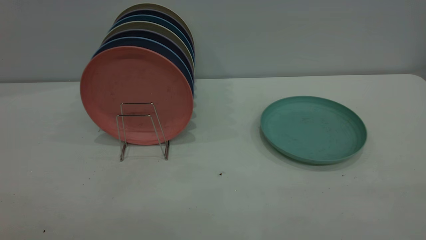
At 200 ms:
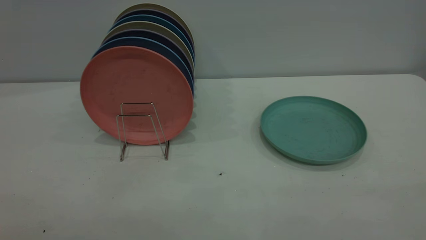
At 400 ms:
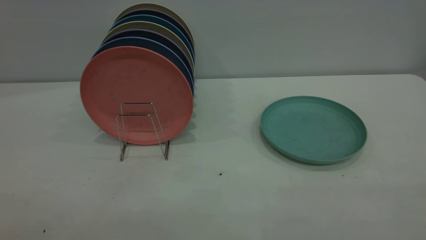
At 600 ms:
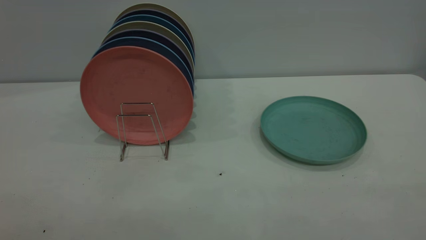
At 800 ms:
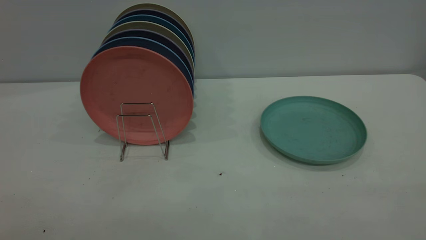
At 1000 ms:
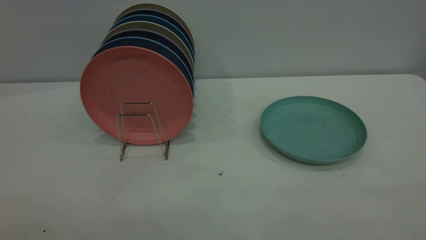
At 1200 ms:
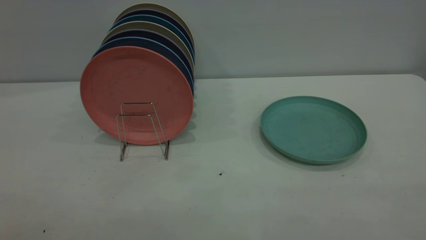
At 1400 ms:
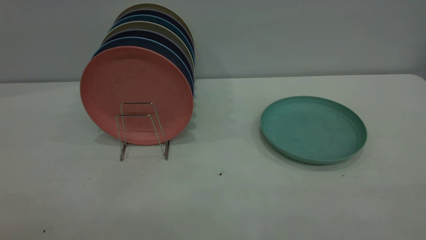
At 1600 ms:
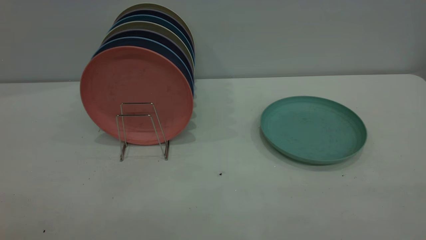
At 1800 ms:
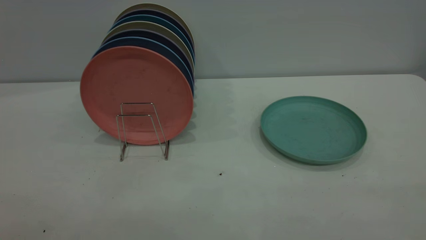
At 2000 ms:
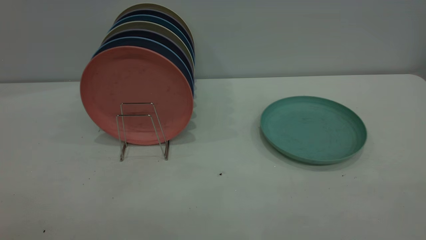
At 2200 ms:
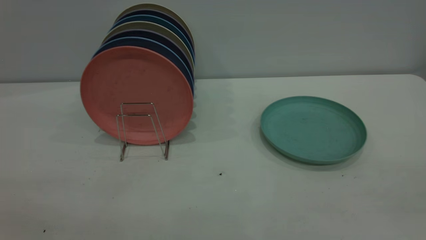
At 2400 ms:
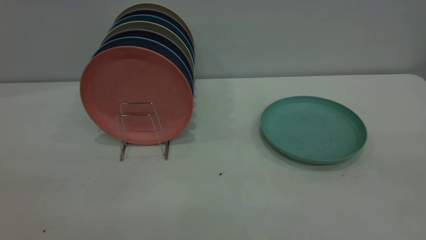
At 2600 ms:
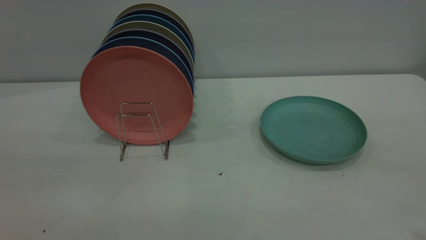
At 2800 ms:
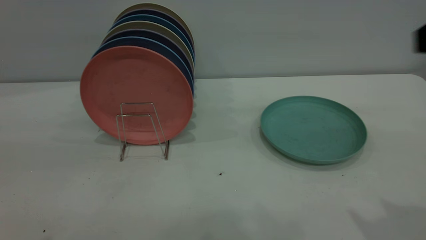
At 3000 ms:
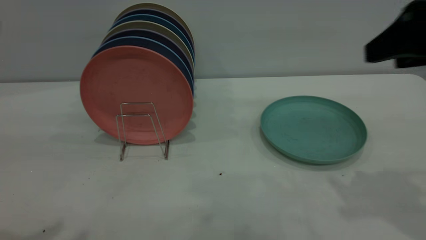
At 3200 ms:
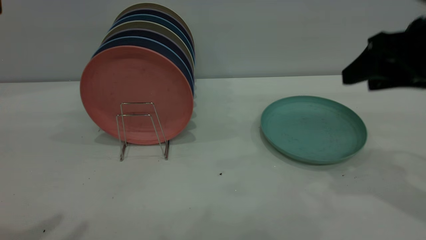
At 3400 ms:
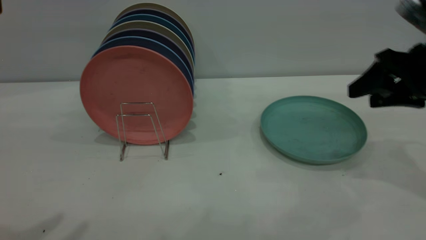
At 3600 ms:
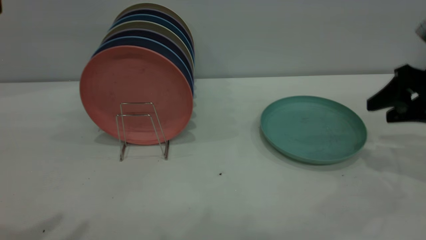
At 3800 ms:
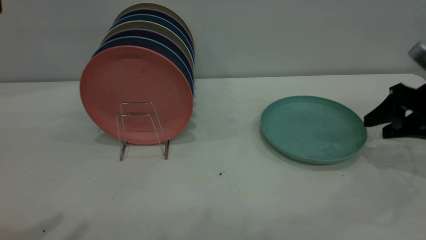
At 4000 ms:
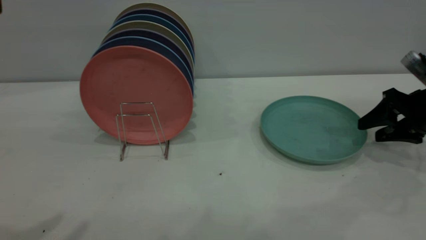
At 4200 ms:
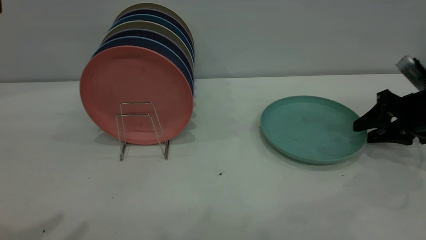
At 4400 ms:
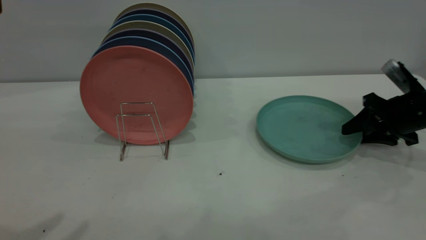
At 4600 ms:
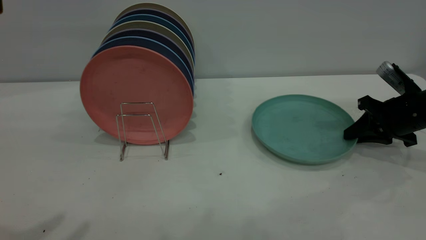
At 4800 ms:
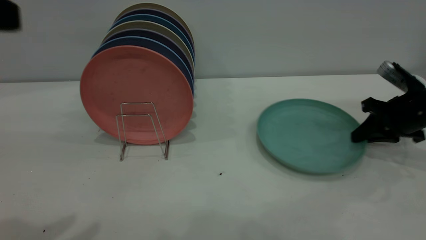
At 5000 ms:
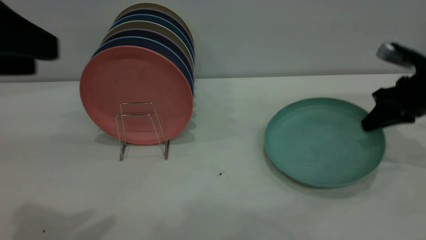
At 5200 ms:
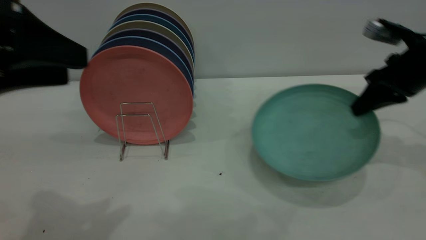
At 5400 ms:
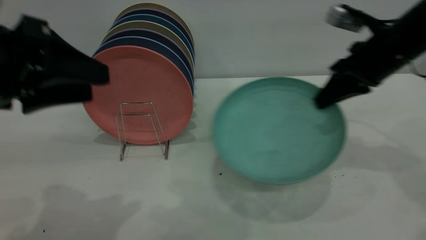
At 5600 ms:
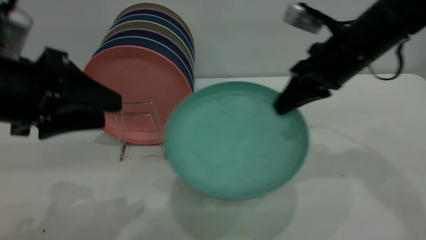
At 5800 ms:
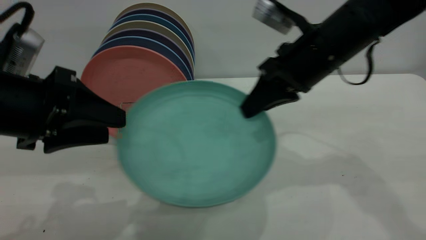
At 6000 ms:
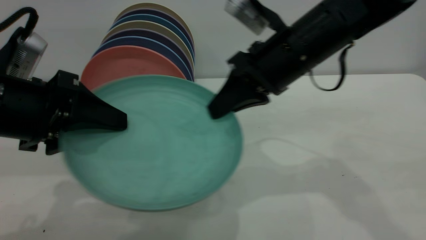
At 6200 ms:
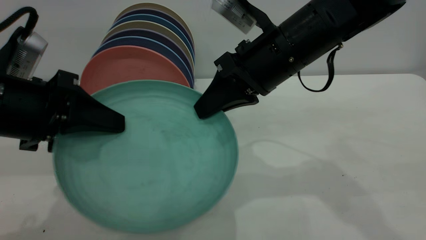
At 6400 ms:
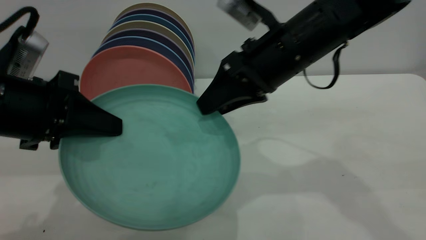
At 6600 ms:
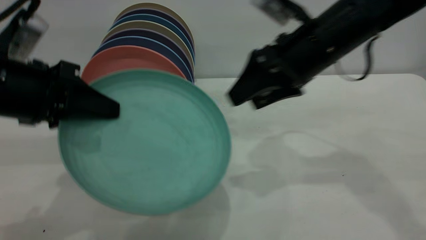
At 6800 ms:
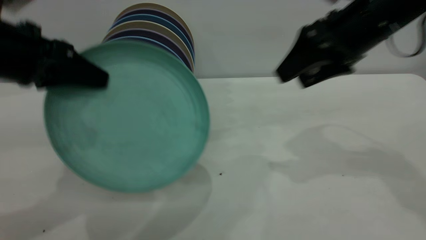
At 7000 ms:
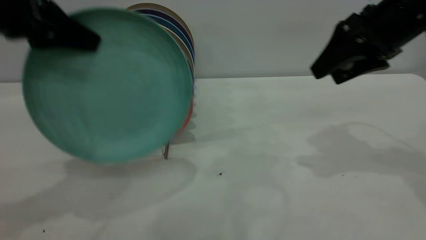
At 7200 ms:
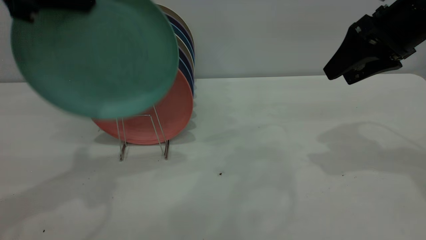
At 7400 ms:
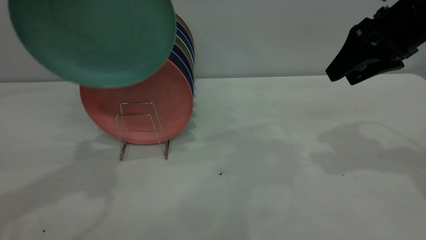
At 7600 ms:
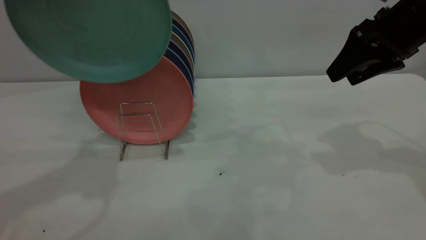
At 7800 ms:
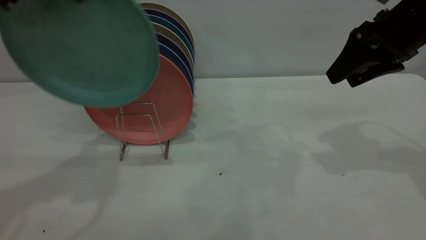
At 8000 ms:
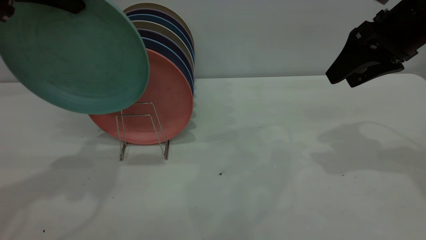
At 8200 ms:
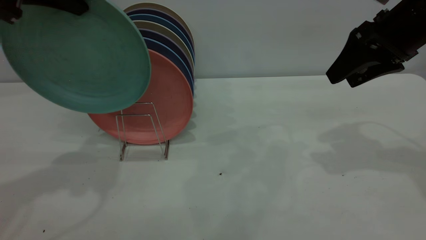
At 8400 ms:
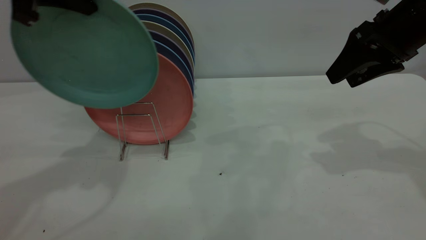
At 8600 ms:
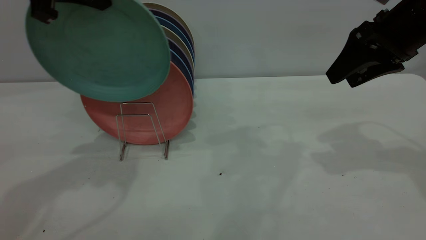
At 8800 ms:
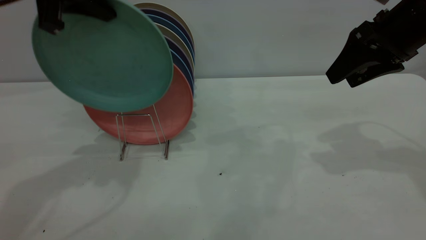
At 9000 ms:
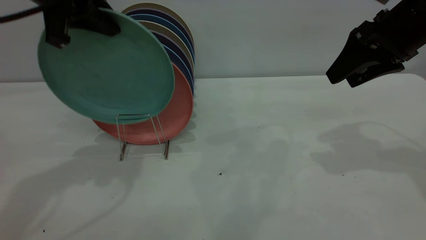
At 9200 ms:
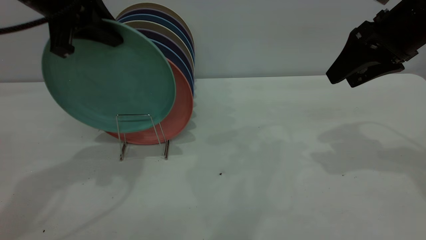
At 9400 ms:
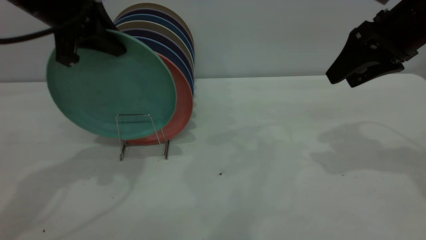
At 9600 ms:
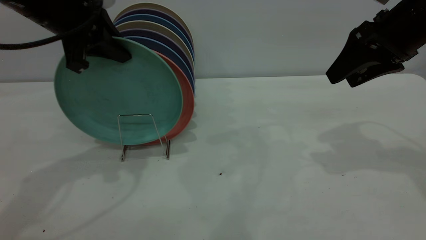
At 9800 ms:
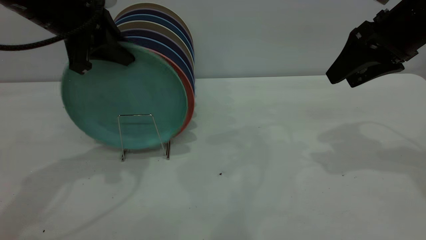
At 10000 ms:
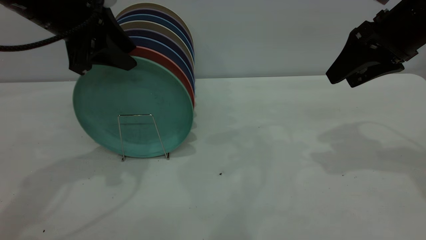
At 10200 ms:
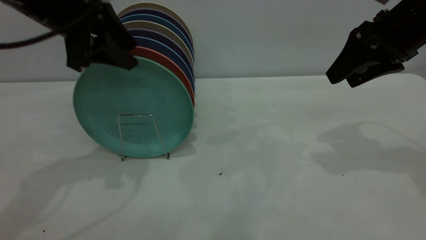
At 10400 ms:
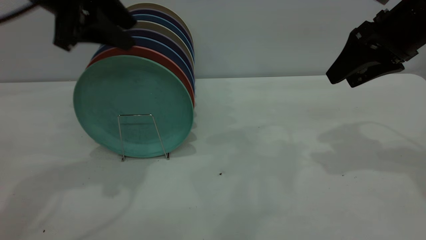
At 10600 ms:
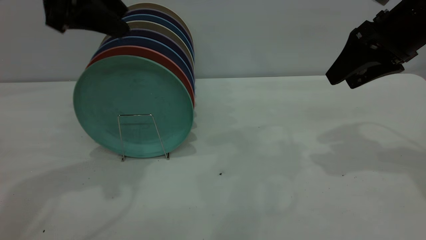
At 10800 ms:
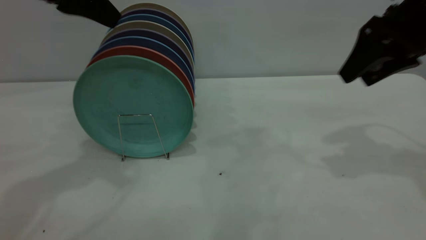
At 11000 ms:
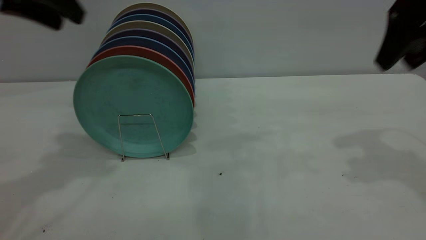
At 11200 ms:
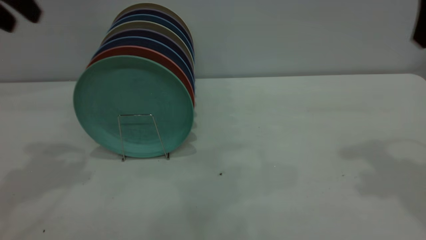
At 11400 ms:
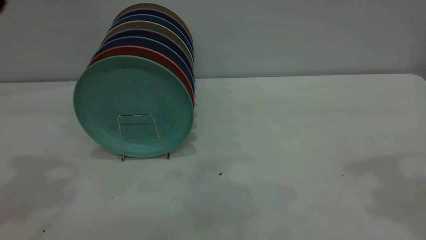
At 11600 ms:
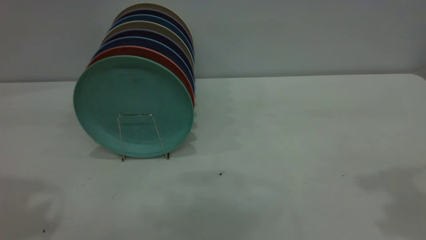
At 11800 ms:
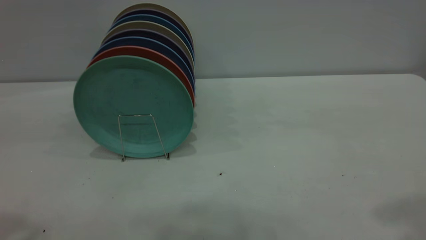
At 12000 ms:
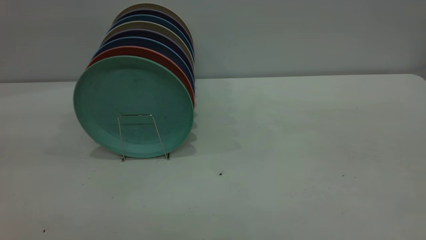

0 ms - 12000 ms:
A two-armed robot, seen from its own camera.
Task of the whole recording: the right gripper grasp the green plate, the right gripper pass the green plate to the left gripper, and the left gripper place the green plate on the plate rack.
Step, 0 ms - 5000 ms: Pick up the plate with the right gripper.
Step, 5200 ms - 6400 ms: Pass the plate from the right gripper to the left gripper.
Step, 6600 ms - 10400 ms: Place the plate on the shelf.
0 ms - 1600 ms: Both grippers stay put.
1600 ms - 3000 ms: The right gripper goes roughly 30 cm forward.
3000 ms - 4400 ms: The right gripper is displaced downward and forward by approximately 25 cm.
4400 ms - 6000 ms: The left gripper heads downward and forward, covering about 15 cm, while the right gripper travels to the left and upward by about 30 cm, and closes up.
6000 ms - 7600 ms: The left gripper goes approximately 20 cm upward and forward, and closes up, while the right gripper shifts about 15 cm to the right, and opens its fingers.
7600 ms - 9000 ms: The left gripper is displaced downward by approximately 5 cm.
9000 ms - 10400 ms: The left gripper opens up.
10400 ms - 12000 ms: The two grippers go approximately 30 cm backward and upward.
